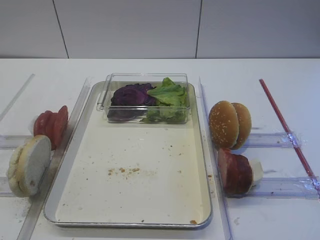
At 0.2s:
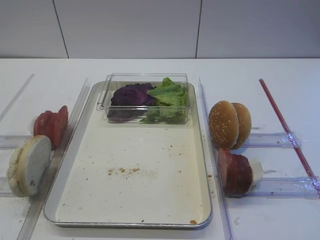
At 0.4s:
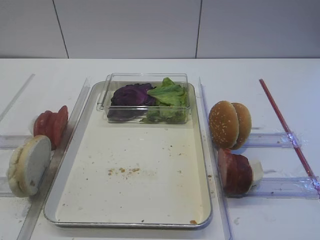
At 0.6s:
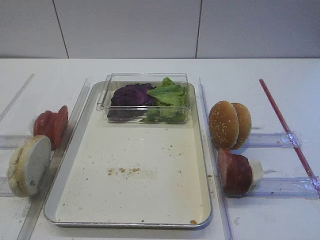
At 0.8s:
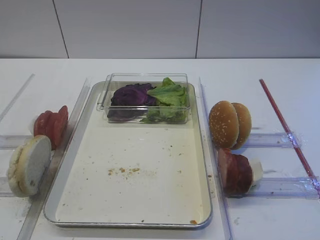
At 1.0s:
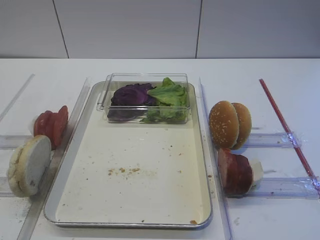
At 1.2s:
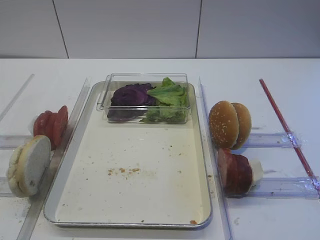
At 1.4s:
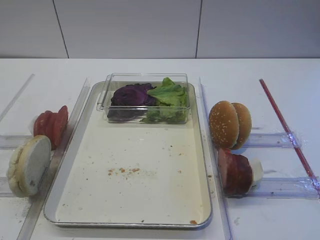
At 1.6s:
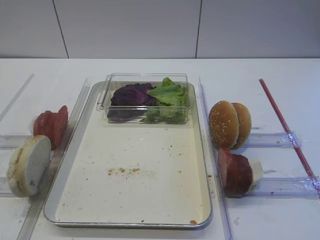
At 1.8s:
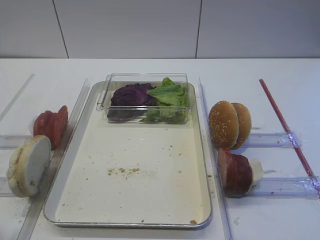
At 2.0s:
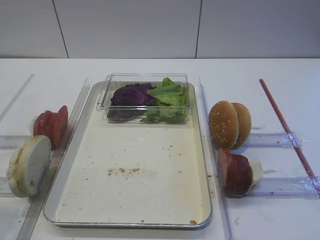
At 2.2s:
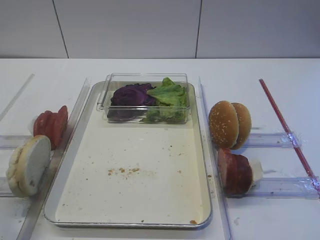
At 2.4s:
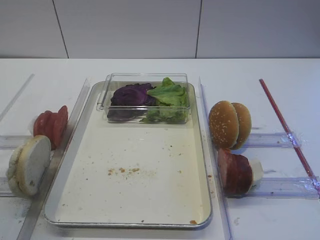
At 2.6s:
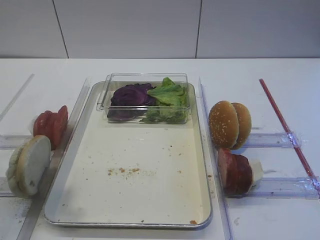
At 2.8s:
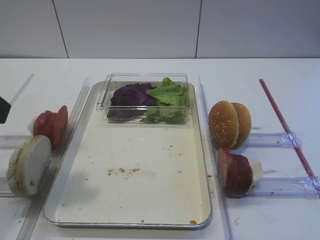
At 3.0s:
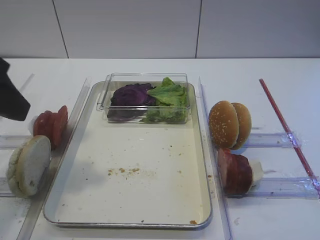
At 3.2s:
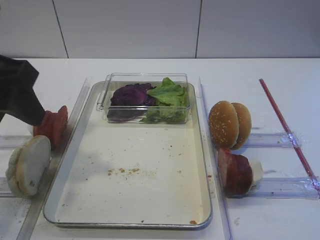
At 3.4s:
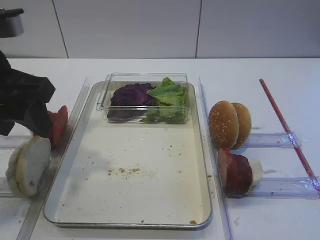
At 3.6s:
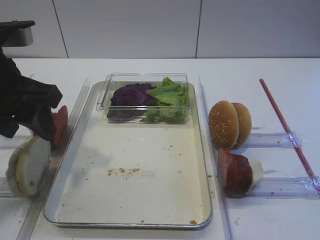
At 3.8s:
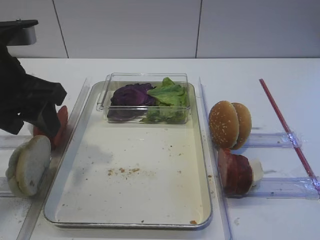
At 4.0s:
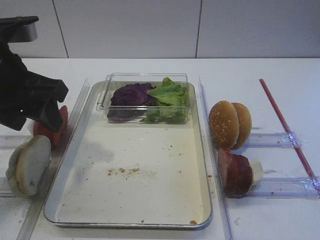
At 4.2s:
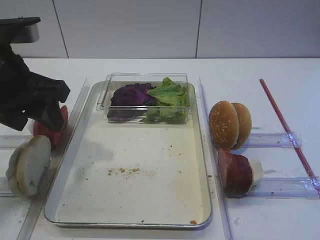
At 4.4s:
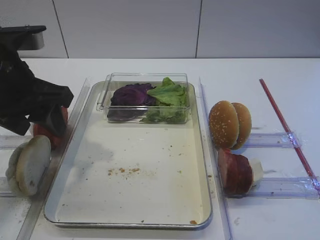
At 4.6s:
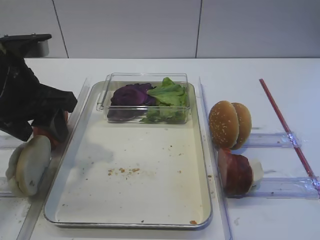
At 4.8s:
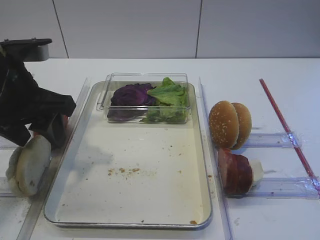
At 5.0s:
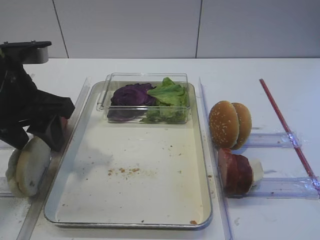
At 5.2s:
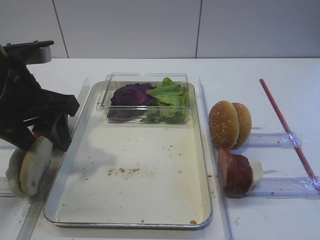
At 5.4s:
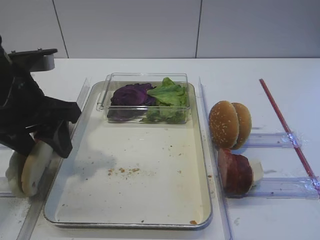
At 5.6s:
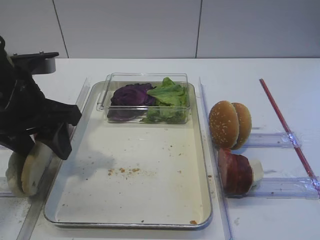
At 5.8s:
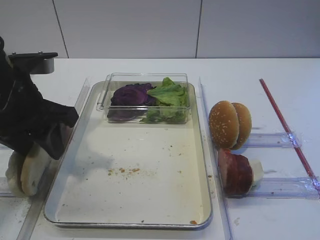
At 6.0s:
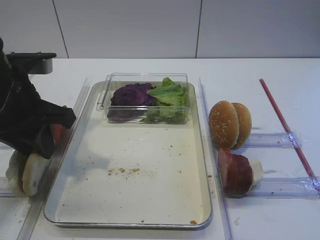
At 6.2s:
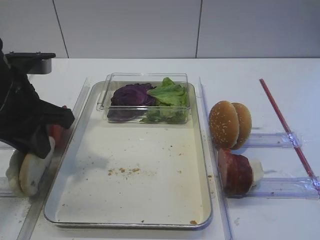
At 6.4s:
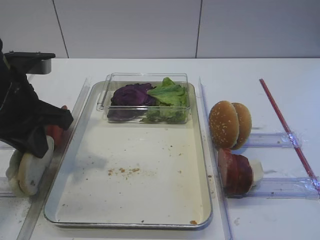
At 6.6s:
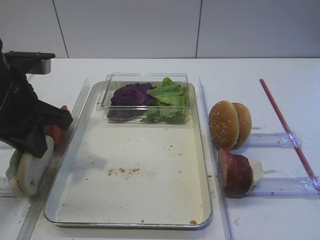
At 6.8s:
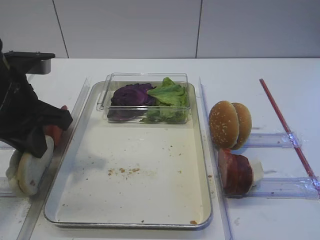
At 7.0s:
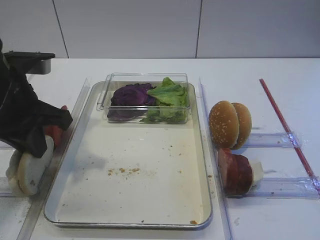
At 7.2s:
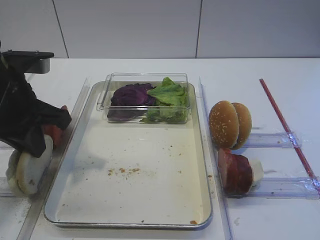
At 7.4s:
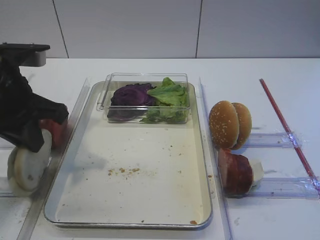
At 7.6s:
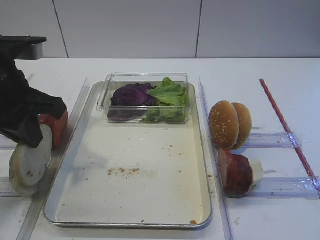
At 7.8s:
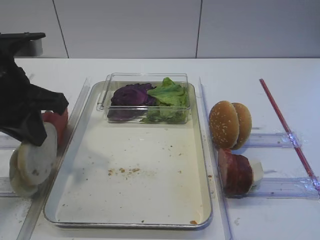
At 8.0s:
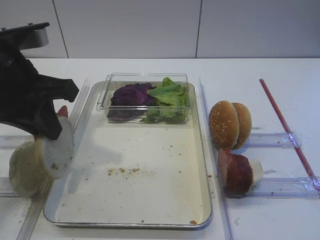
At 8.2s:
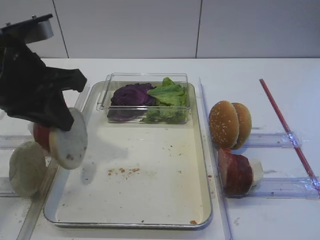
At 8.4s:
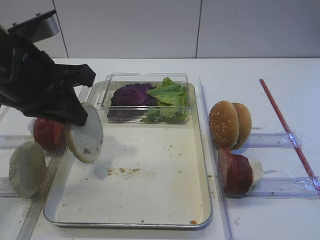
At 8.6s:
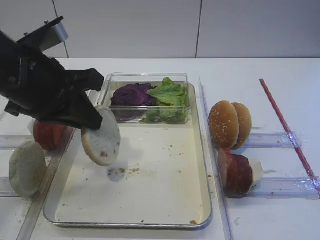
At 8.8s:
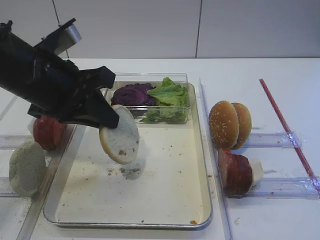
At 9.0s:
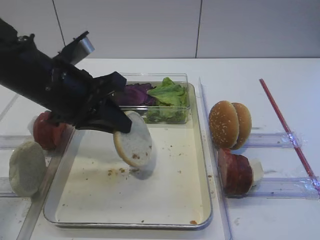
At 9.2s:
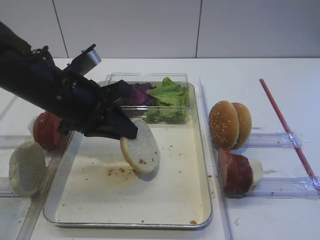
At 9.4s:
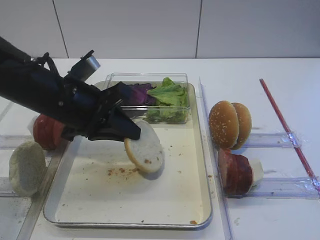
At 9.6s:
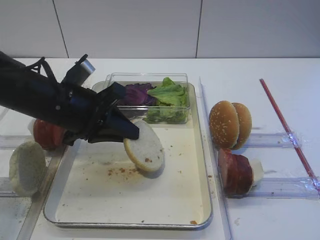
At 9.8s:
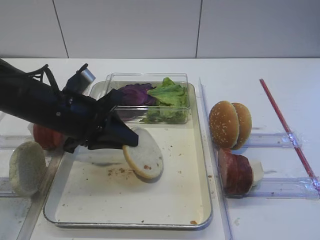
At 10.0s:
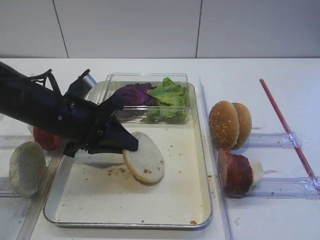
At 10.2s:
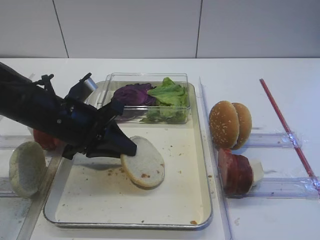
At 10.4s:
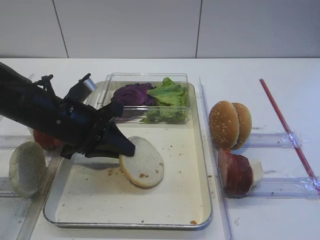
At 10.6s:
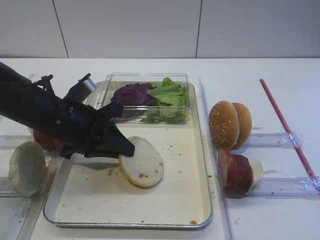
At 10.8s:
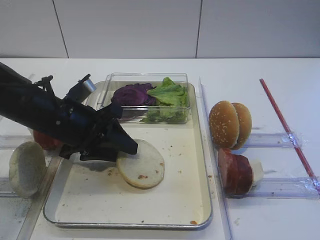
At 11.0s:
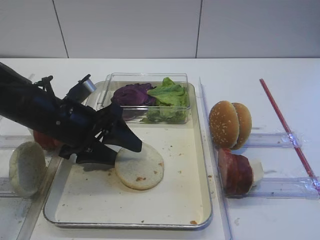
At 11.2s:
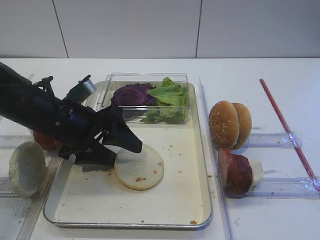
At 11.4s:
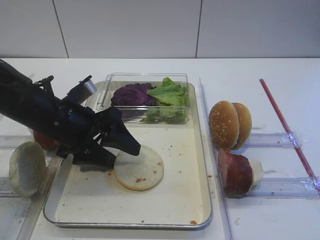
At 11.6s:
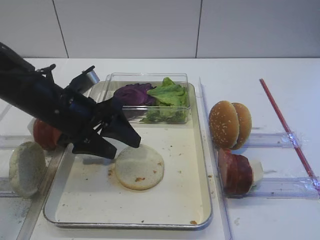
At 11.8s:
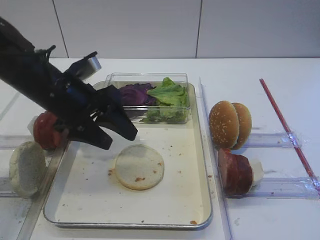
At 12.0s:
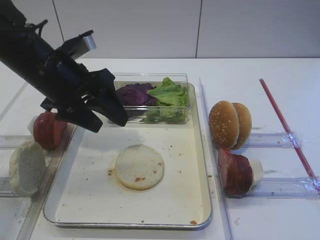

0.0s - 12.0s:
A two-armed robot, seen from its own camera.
Step, 0.0s - 7.8s: Pick up the bread slice with the left gripper.
Step, 8.0s - 11.6s: Place the bread slice on the tray with the left gripper.
1.6s - 3.0s: The left gripper goes about 15 cm forward.
3.0s - 4.4s: The left gripper moves forward and downward, about 10 cm.
4.4s - 6.0s: The left gripper closes.
6.0s - 7.6s: The left gripper closes.
7.6s - 9.0s: The left gripper heads to the right, covering some 5 cm.
9.0s - 10.4s: The left gripper shifts approximately 10 cm downward.
10.4s - 12.0s: The left gripper is displaced upward by about 5 cm, and opens up.

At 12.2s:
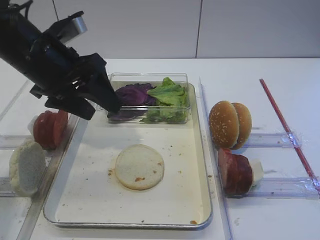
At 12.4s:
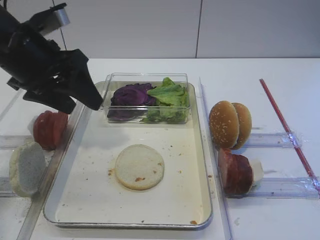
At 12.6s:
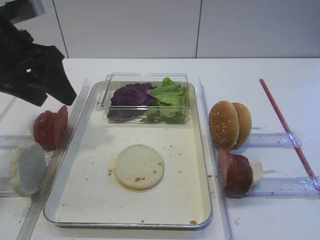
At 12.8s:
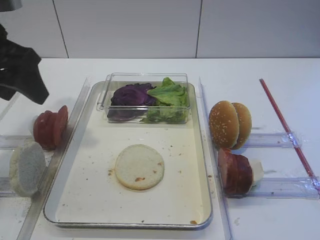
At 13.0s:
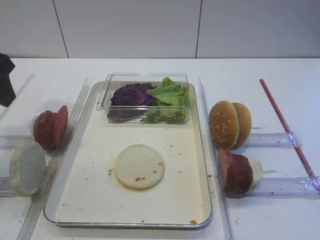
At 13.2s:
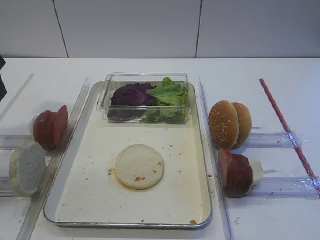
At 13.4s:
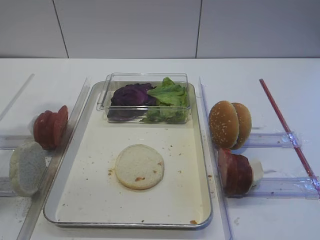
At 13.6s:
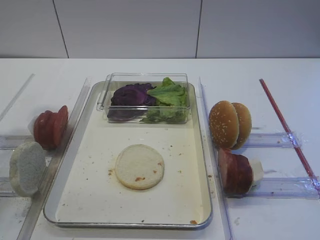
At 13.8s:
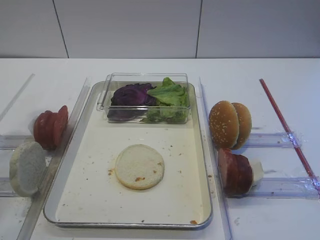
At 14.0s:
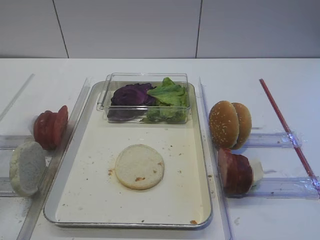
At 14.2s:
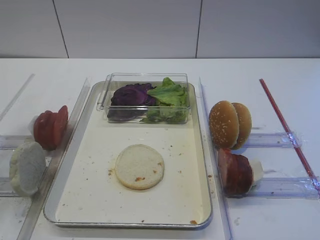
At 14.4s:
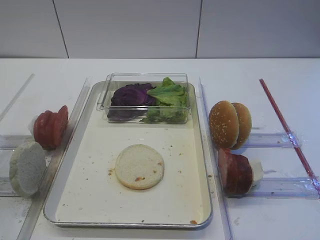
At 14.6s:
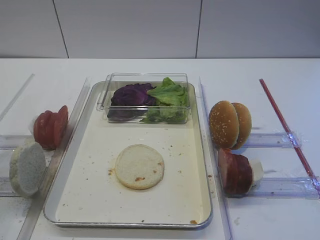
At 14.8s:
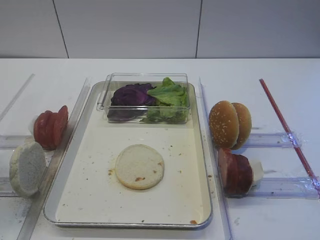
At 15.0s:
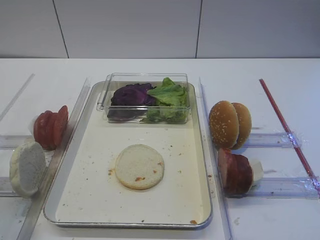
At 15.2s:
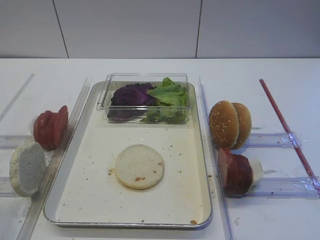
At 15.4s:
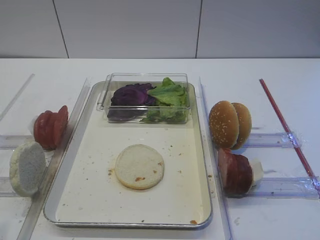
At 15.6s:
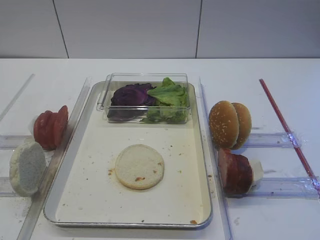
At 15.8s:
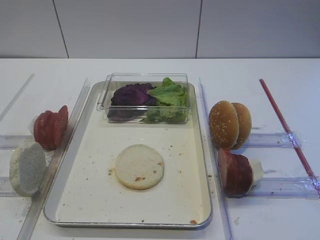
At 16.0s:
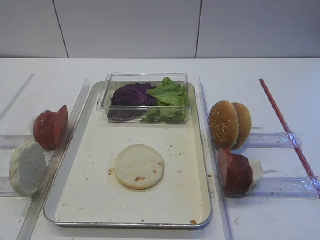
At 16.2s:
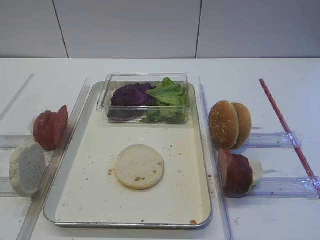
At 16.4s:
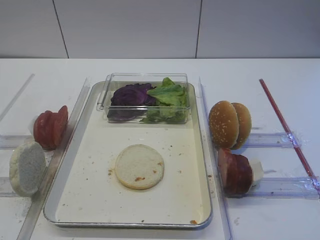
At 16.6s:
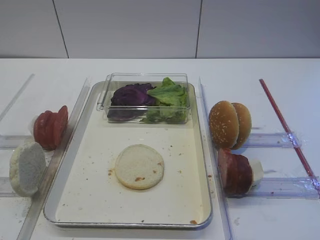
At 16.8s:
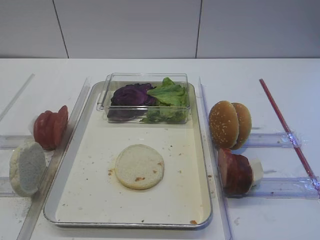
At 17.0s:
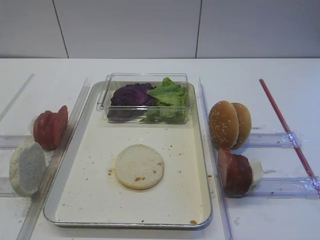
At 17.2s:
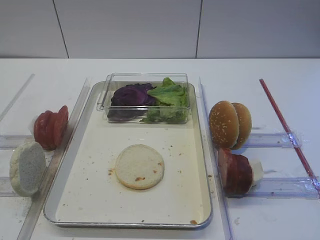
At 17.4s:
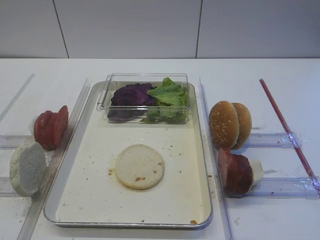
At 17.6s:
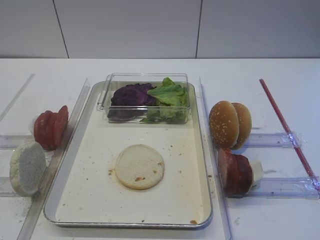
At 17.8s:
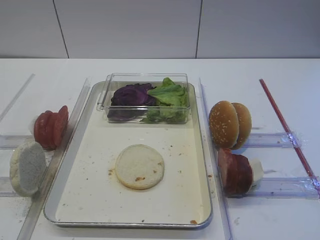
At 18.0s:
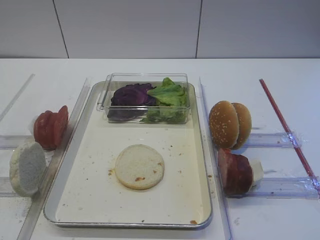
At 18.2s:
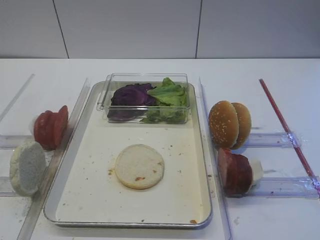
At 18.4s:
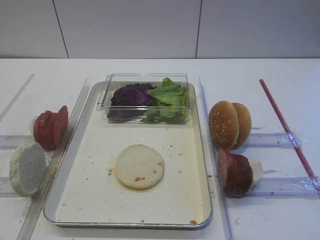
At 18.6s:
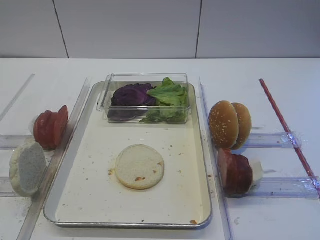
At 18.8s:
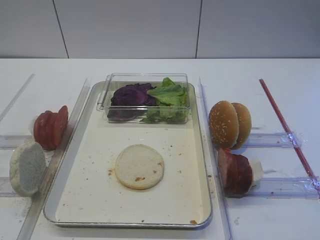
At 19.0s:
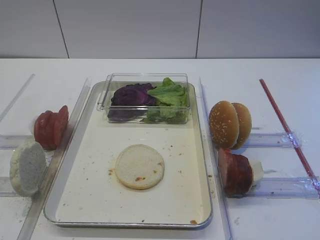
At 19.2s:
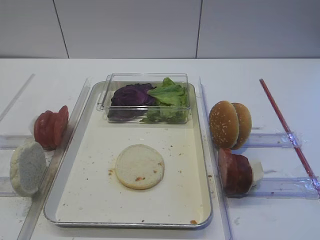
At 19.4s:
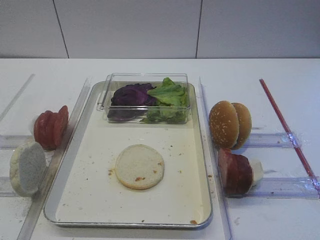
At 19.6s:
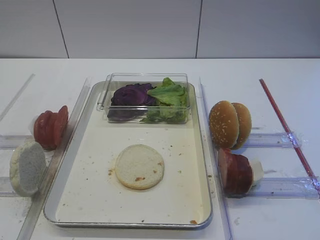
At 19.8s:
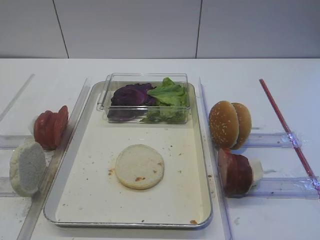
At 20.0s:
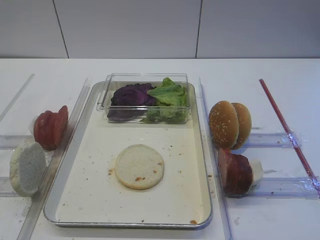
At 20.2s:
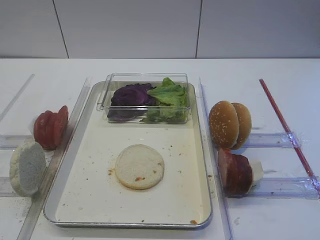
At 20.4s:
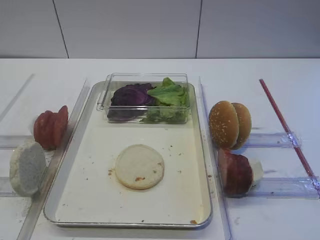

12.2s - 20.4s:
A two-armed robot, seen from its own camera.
12.2s - 13.8s: The left gripper travels upward, backward and to the left by approximately 20 cm.
13.8s - 15.4s: The left gripper travels backward by some 20 cm.

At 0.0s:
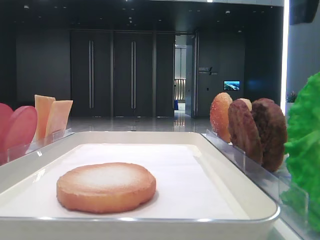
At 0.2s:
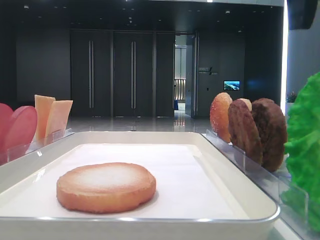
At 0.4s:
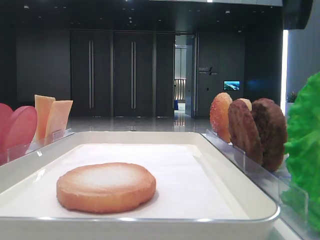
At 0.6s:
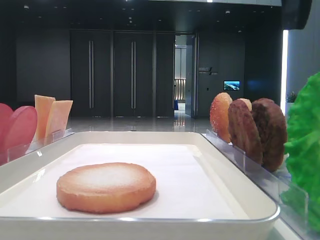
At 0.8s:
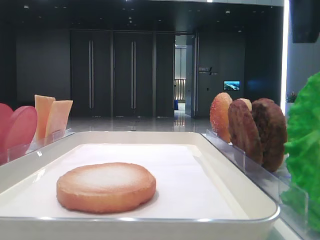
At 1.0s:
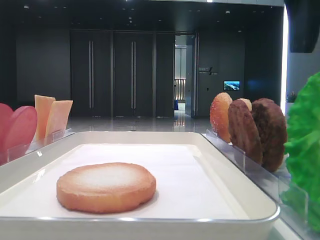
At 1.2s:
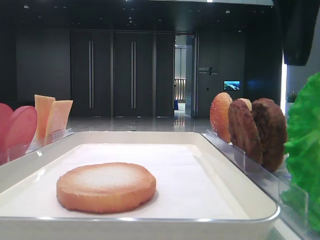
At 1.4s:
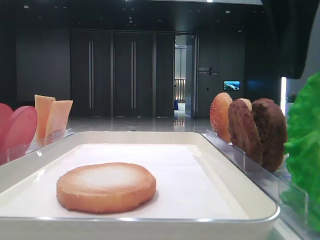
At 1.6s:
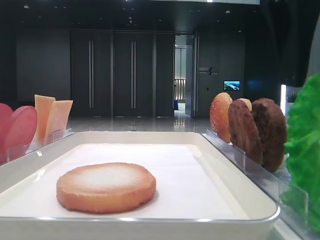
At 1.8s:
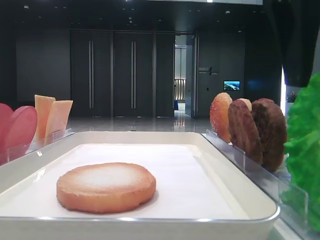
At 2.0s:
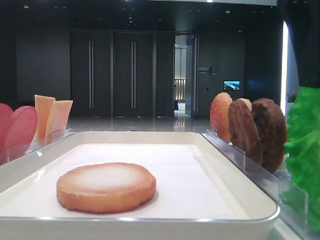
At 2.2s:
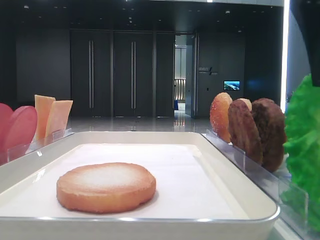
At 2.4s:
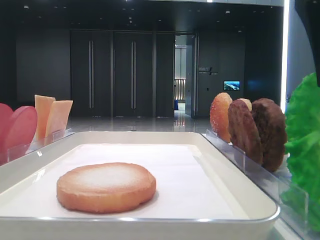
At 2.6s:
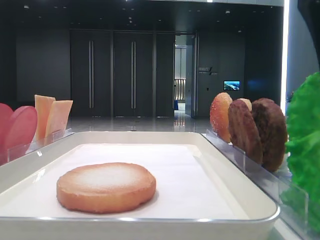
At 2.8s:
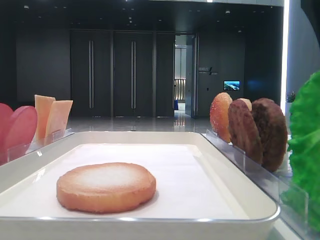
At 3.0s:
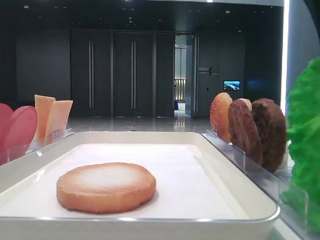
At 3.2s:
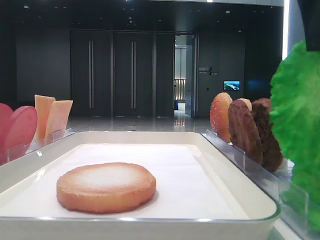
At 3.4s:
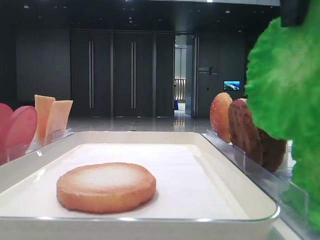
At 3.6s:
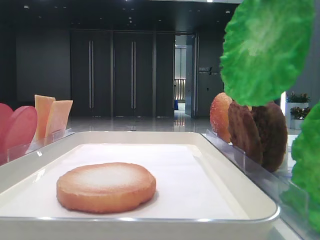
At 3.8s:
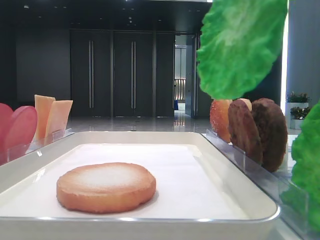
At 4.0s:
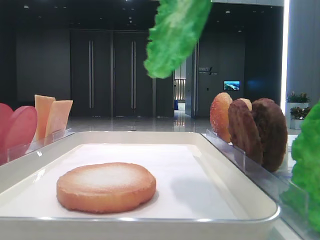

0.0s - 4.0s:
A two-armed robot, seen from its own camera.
Step, 0.0s - 3.0s: Grab the lettuce leaf with the right hand.
0.0s - 1.4s: The grippers move only a little.
1.4s - 2.6s: The right gripper closes its fingers.
2.6s - 4.0s: The right gripper moves upward, approximately 10 cm.
